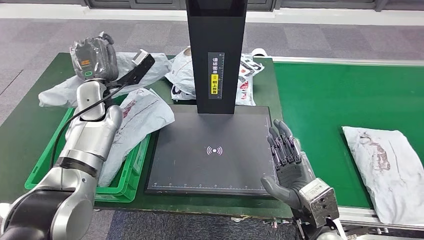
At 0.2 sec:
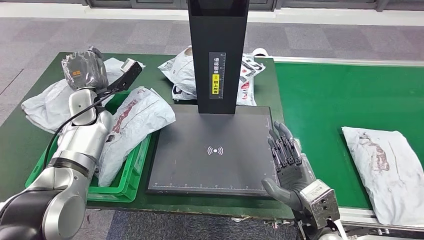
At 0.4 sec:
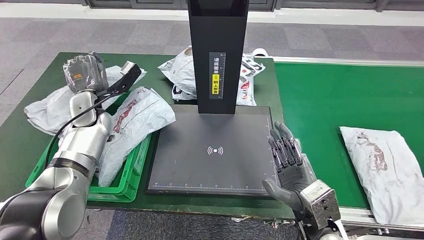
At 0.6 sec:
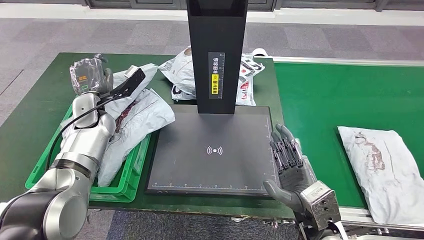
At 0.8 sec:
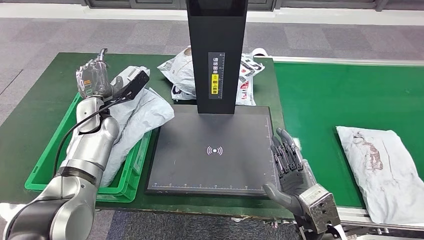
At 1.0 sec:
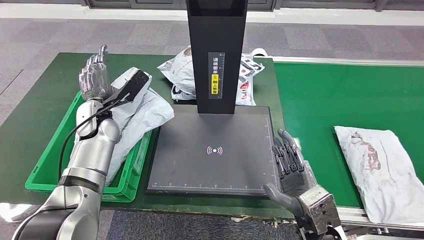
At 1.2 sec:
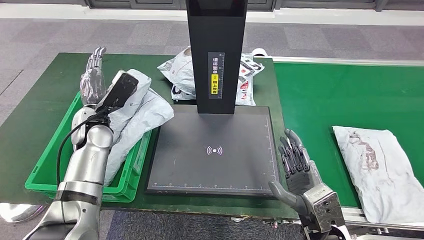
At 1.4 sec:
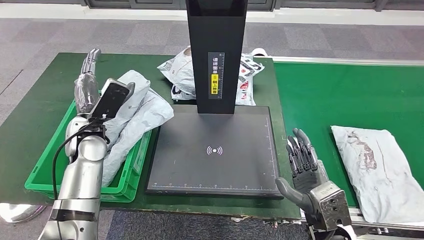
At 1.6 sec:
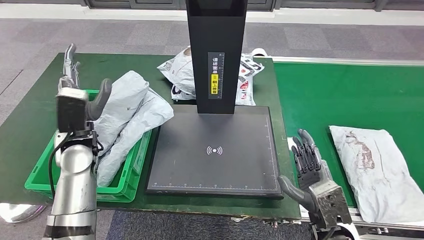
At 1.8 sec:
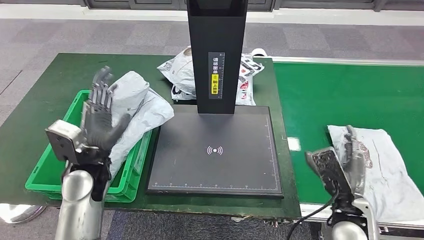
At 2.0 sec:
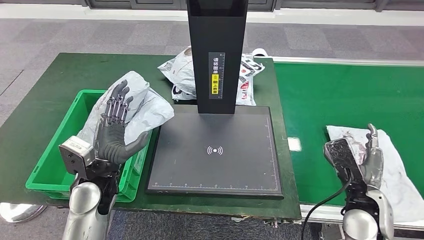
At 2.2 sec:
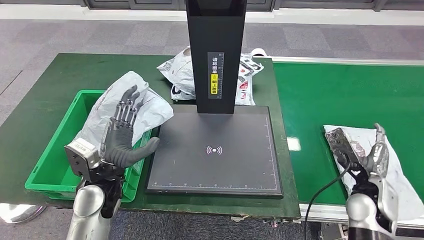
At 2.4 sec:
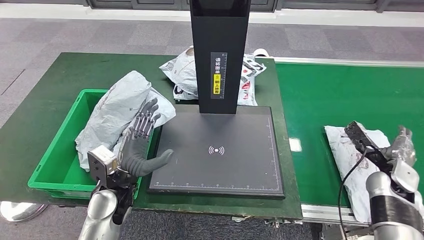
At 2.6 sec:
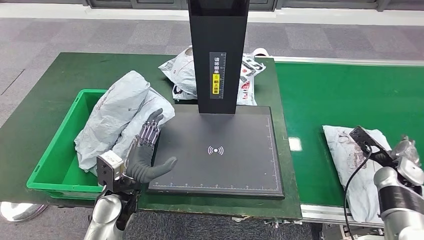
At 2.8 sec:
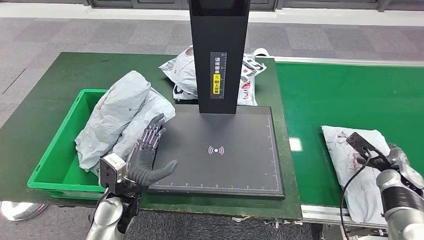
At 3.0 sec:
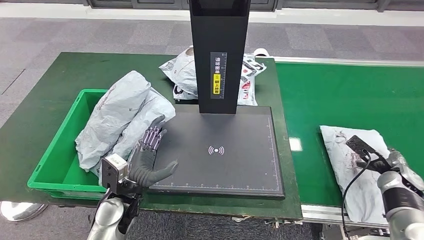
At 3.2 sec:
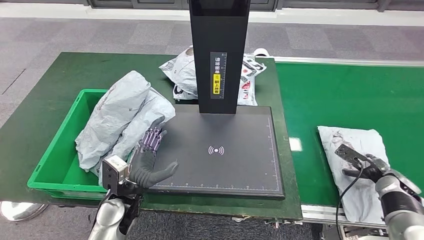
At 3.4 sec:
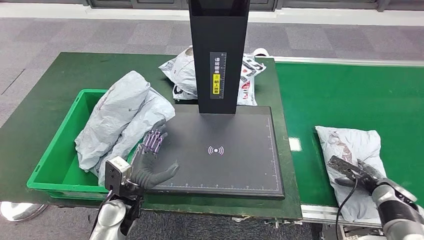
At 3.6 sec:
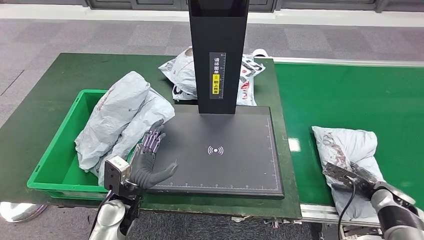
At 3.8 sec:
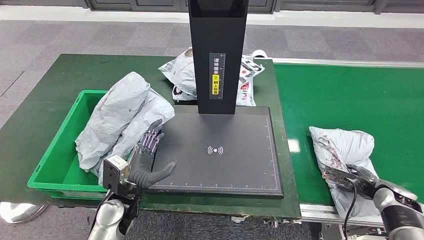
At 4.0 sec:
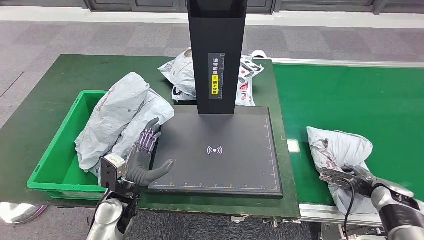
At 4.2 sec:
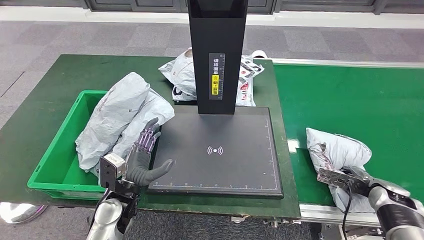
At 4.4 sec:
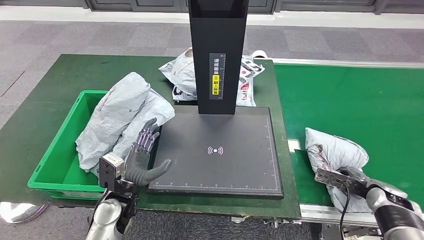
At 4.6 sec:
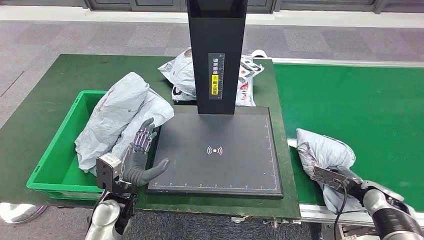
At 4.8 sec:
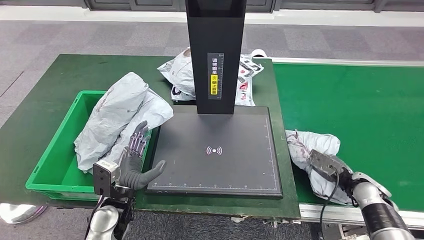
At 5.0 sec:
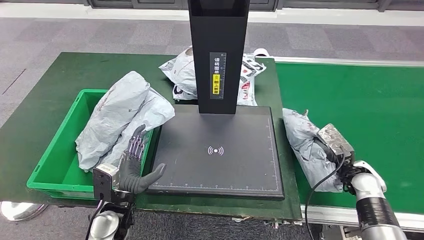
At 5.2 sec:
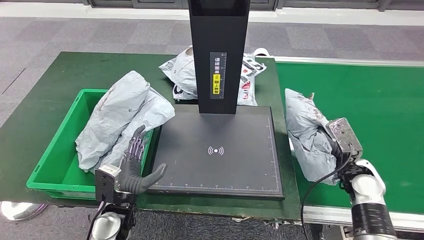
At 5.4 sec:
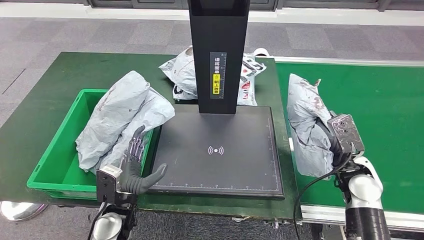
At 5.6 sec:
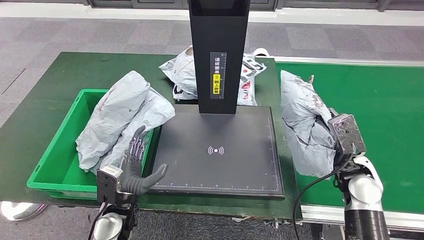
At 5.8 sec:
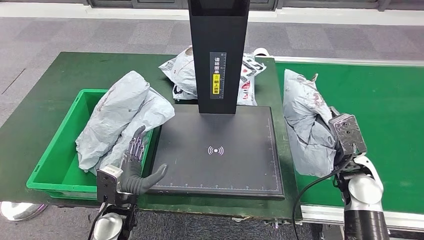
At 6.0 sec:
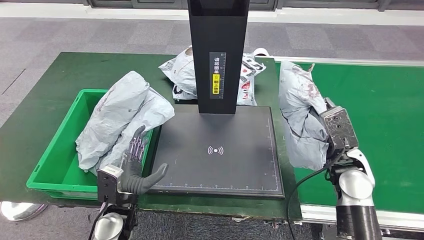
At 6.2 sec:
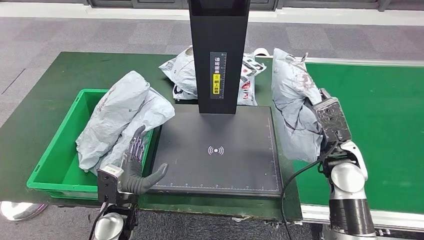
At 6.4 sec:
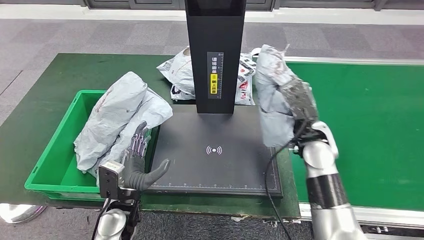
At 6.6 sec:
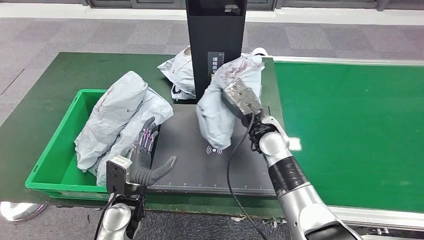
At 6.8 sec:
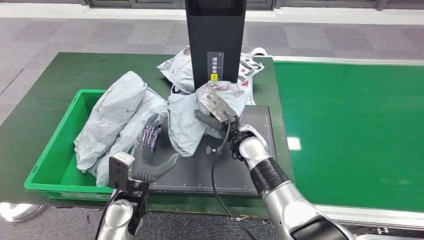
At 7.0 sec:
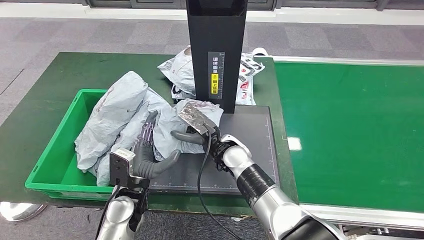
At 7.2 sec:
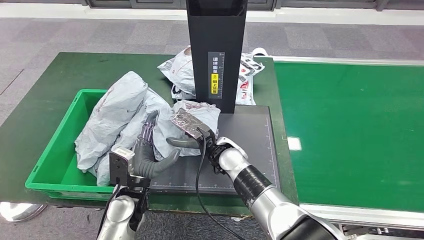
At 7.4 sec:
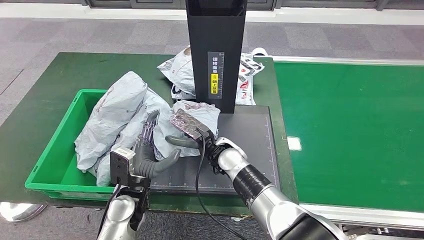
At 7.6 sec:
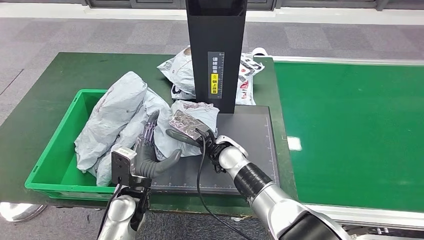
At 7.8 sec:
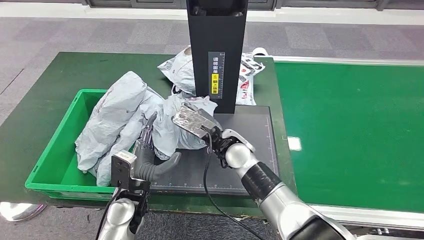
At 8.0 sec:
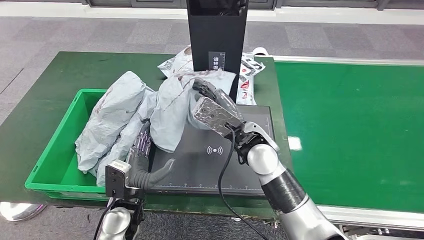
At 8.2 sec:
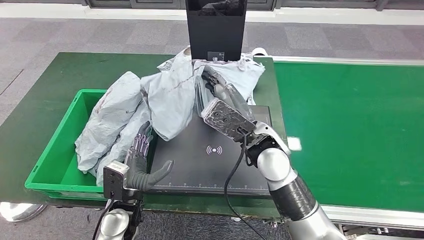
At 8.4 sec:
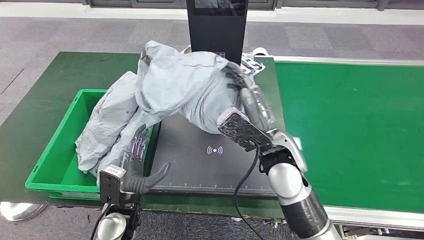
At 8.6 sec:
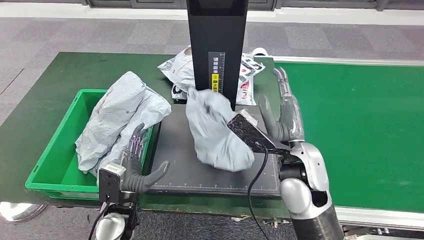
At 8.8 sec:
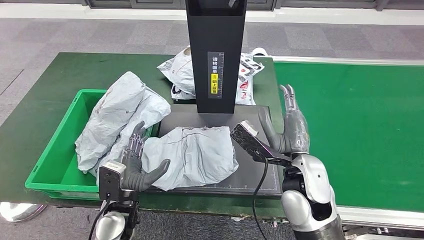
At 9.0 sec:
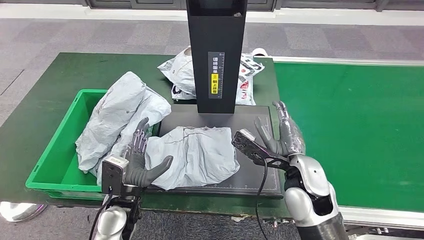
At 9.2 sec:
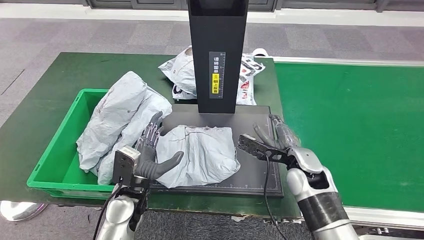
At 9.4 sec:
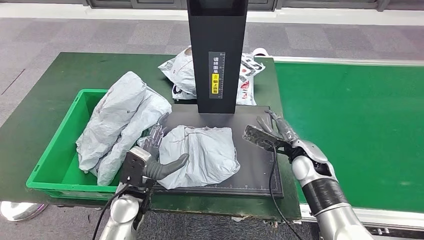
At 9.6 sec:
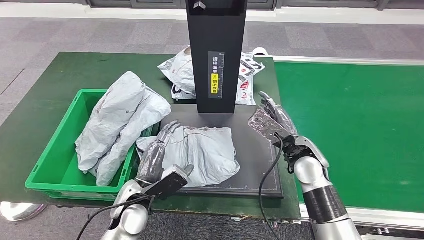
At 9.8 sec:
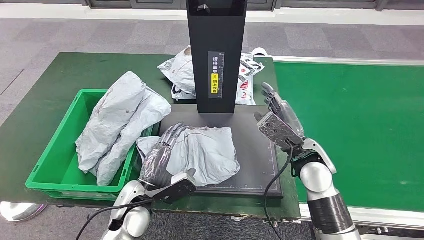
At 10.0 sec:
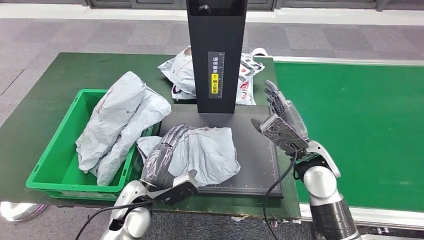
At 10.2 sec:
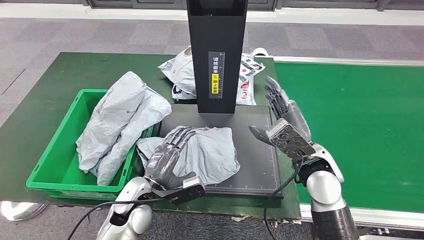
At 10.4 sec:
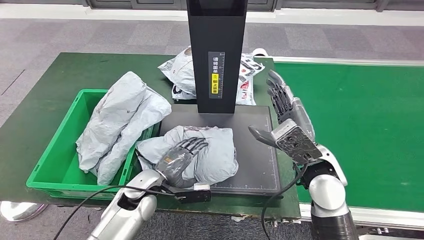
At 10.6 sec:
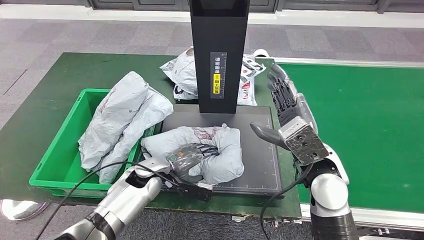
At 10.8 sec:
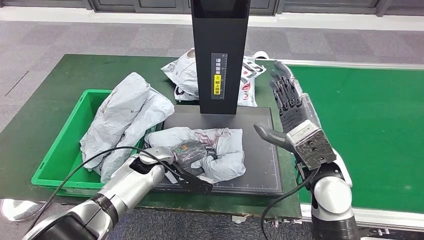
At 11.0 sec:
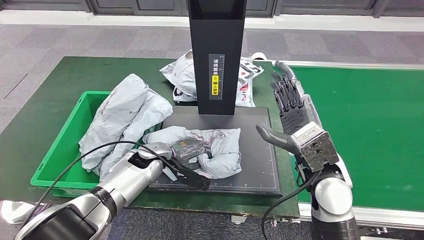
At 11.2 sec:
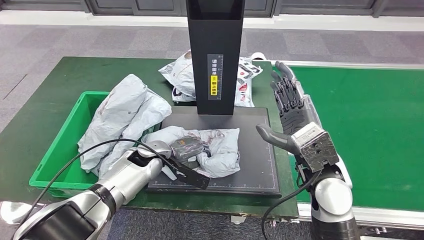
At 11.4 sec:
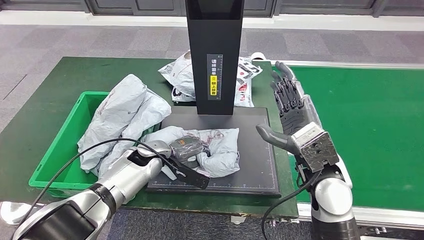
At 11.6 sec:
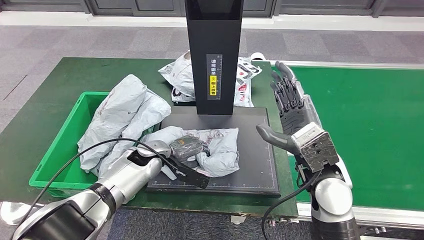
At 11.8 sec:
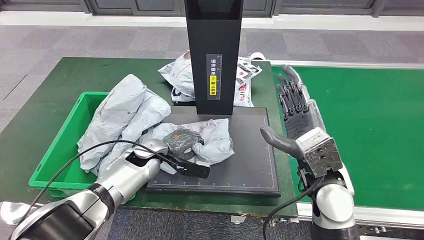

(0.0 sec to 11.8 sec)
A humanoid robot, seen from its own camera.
Step, 0.4 sec - 2.8 sec: Place the parcel into the delivery box.
Step, 3.2 sec - 5.8 sec: Pick up the parcel from the conveyor belt.
Step, 6.0 sec - 9.8 sec: Place the parcel onto the inbound machine.
3.0 sec - 4.4 sec: The right hand changes place by approximately 5 cm.
7.4 sec - 8.8 sec: The right hand is displaced to the right, backward and upward by roughly 20 cm.
8.8 sec - 10.4 sec: The right hand travels downward and back again, approximately 10 cm each way, while the left hand travels forward by some 5 cm.

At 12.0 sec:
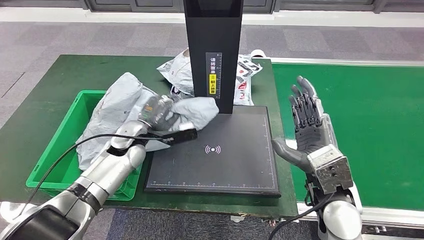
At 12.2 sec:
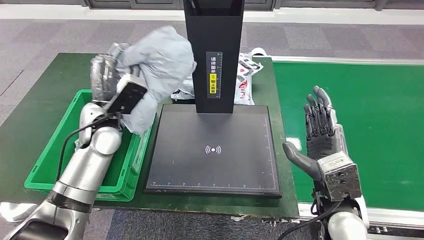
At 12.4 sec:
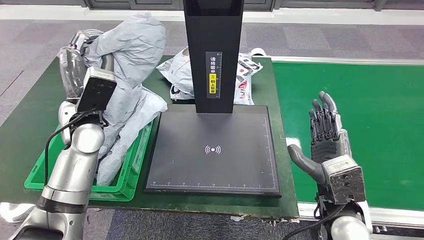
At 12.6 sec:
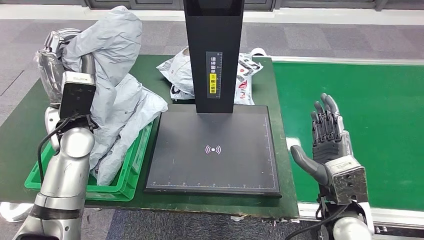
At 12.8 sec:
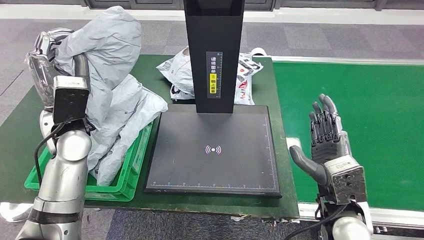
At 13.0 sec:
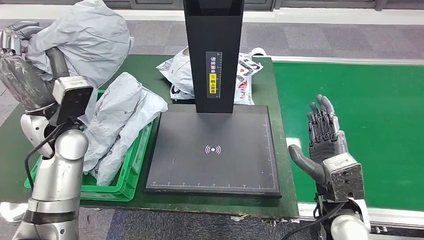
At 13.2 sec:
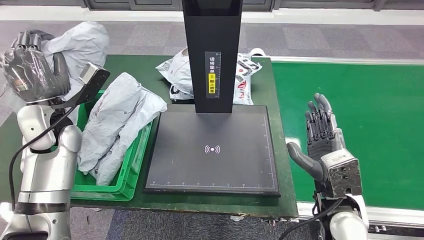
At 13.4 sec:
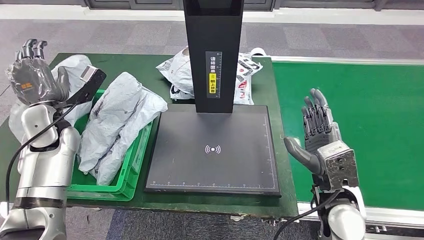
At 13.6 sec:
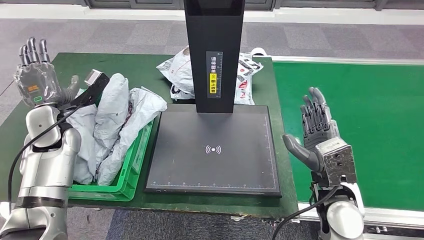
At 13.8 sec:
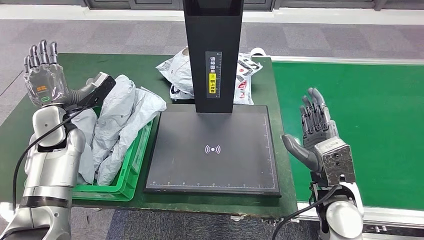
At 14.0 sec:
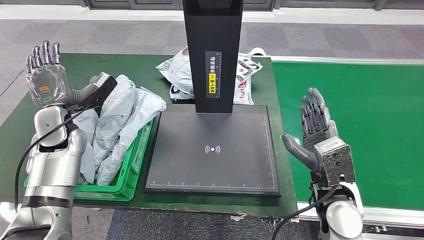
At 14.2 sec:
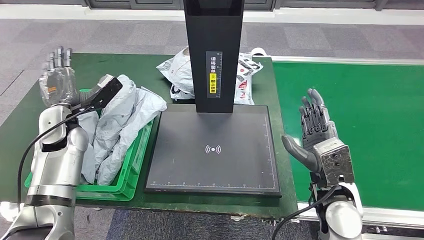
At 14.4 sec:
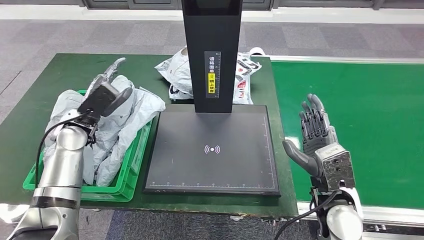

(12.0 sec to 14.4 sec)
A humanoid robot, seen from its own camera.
Step, 13.4 sec - 14.4 sec: Place the parcel into the delivery box.
